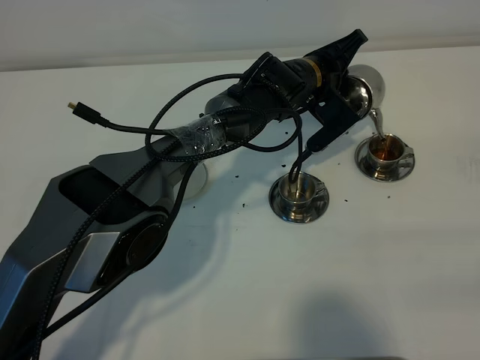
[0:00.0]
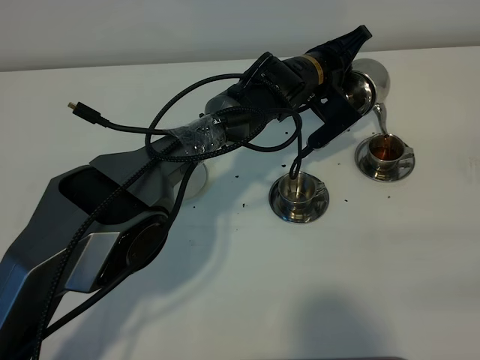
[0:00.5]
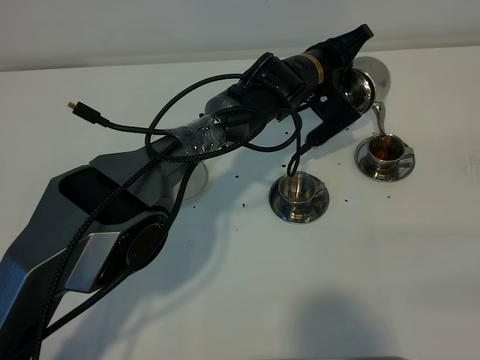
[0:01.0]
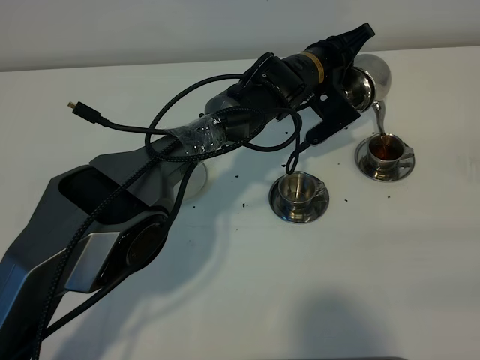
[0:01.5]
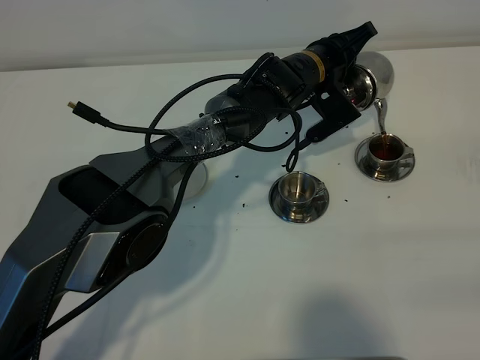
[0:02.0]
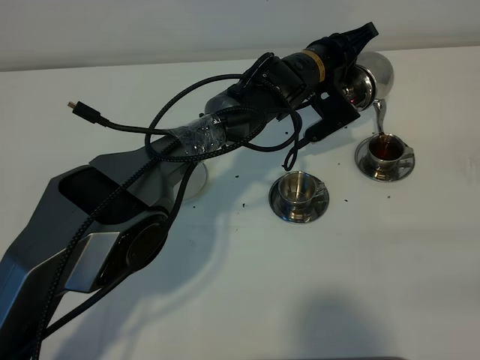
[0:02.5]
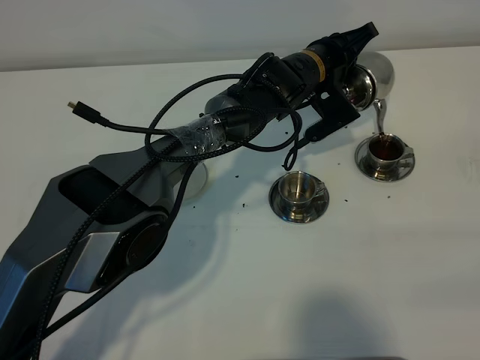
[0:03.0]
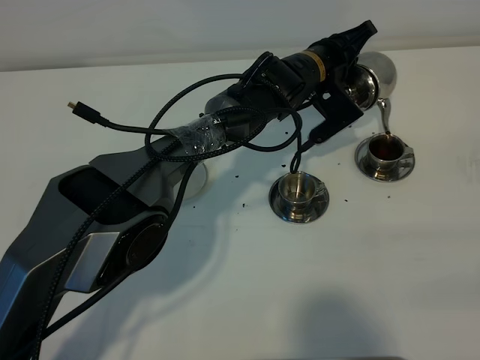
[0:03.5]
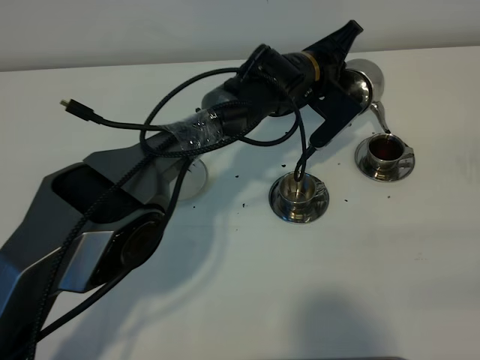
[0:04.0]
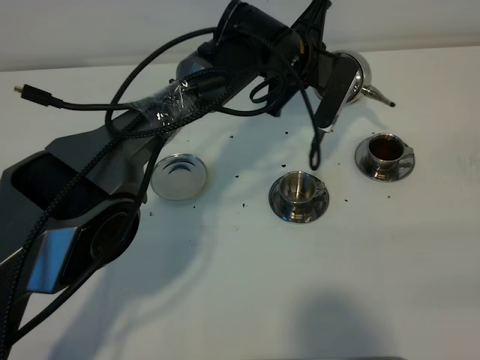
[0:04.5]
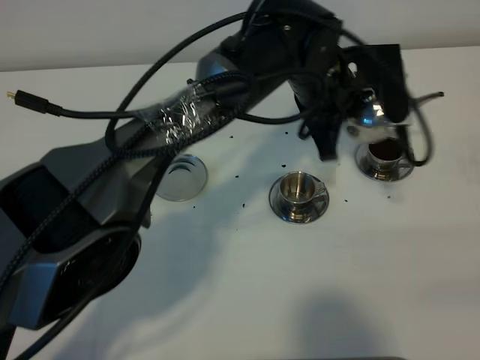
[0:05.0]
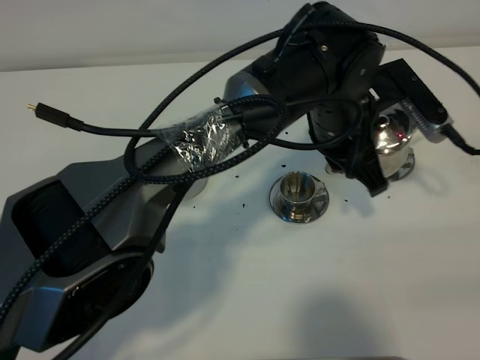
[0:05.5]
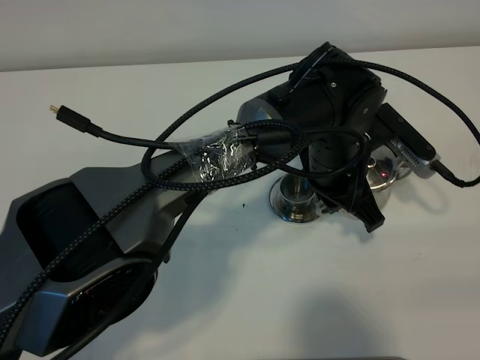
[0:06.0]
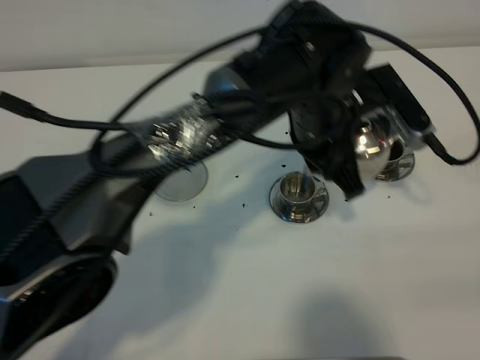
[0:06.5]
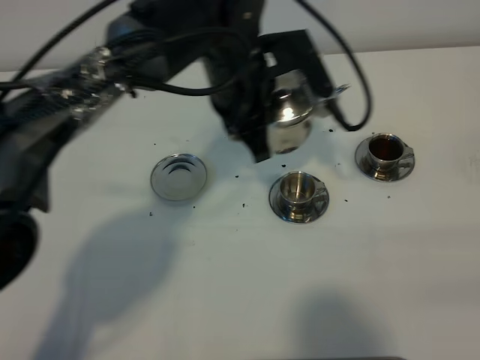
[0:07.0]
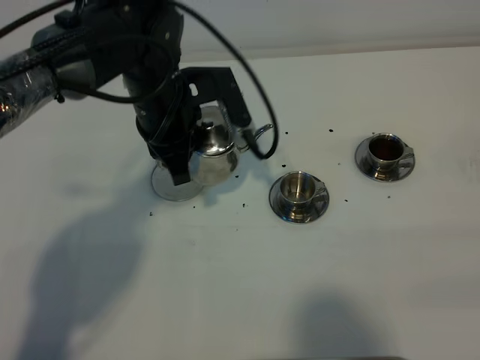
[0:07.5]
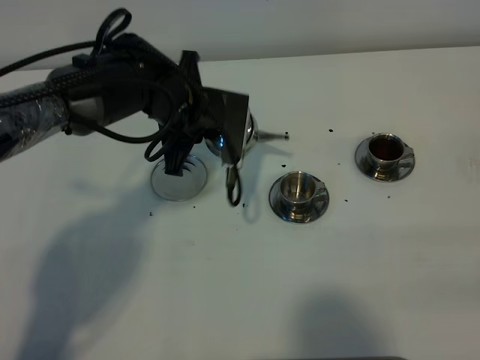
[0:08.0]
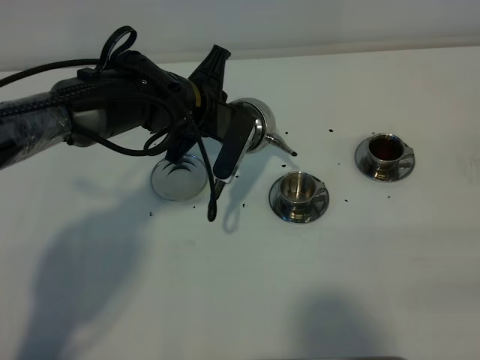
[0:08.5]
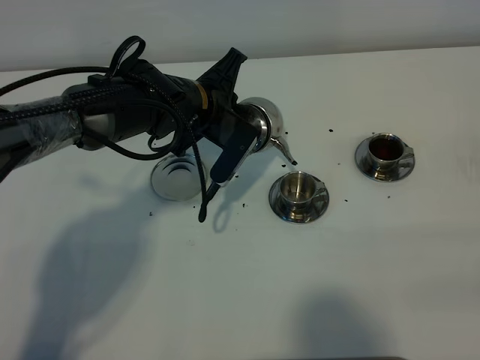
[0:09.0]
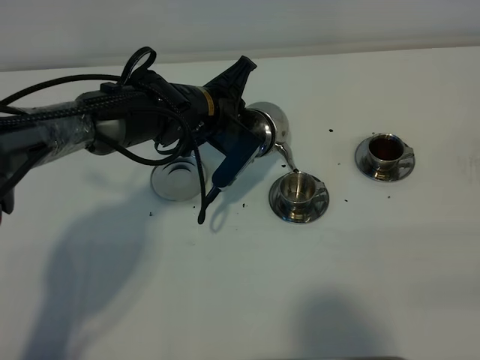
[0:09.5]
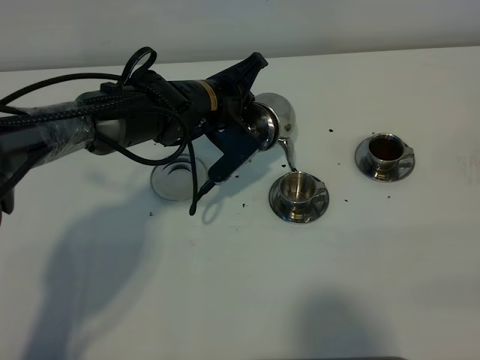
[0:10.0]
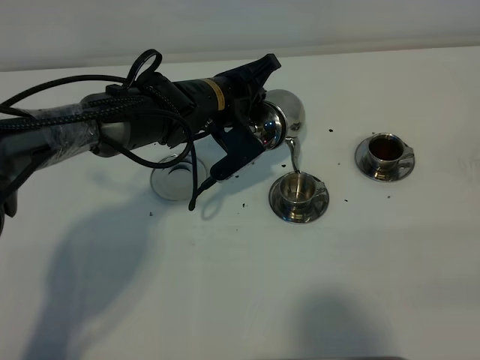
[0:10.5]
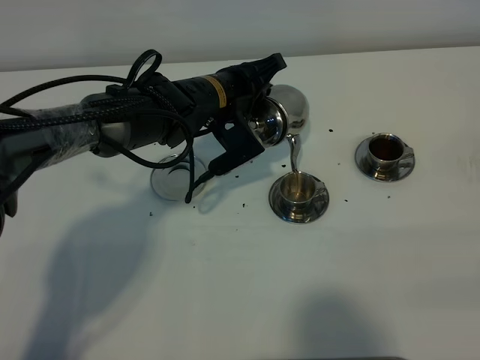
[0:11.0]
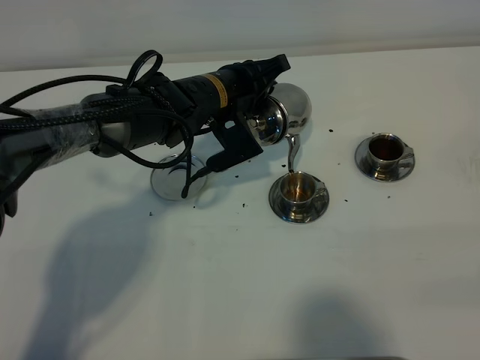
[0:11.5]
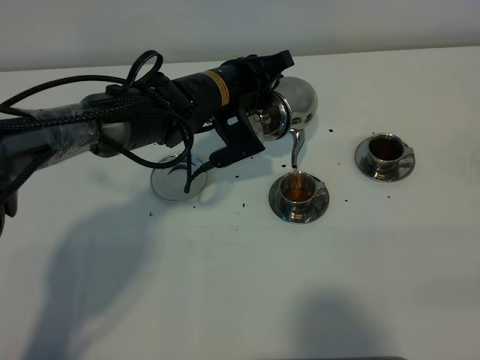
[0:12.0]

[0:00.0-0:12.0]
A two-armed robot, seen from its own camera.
Task of the whole recording: grasp the stainless steel teapot and pour the tea into the two stainless steel teacups one by one, put the stainless steel teapot back in its original place.
Step, 0:00.0 to 0:04.0: Pour tea into the teacup with the left gripper.
0:00.0 to 0:04.0: The grippers move only a little.
0:04.0 to 0:06.0: The left gripper heads backward, covering approximately 15 cm.
0:06.0 to 0:08.0: The left gripper shifts about 20 cm to the left and forward.

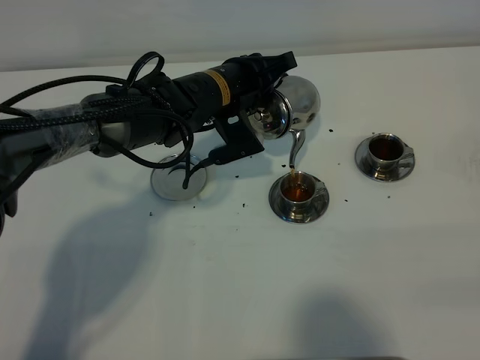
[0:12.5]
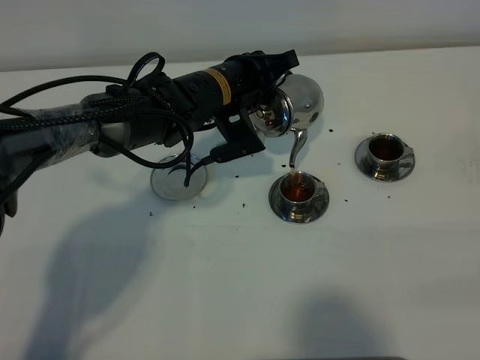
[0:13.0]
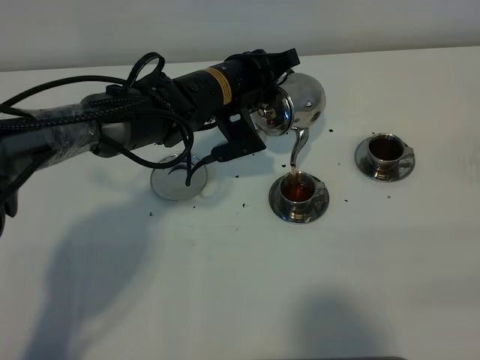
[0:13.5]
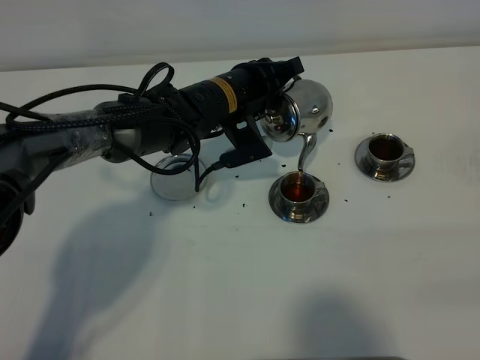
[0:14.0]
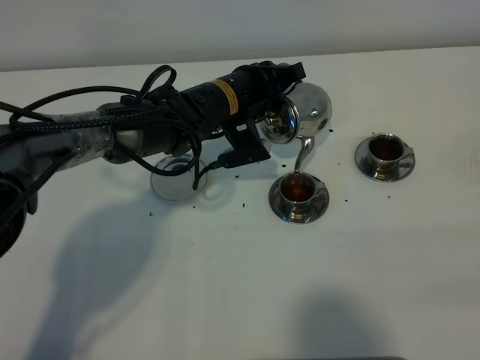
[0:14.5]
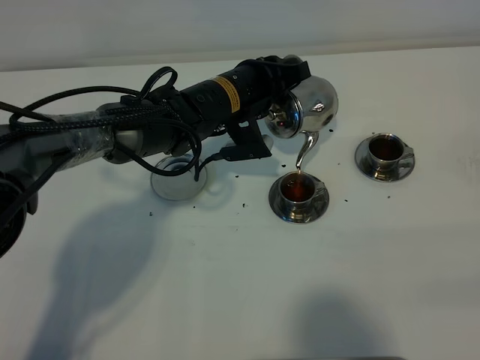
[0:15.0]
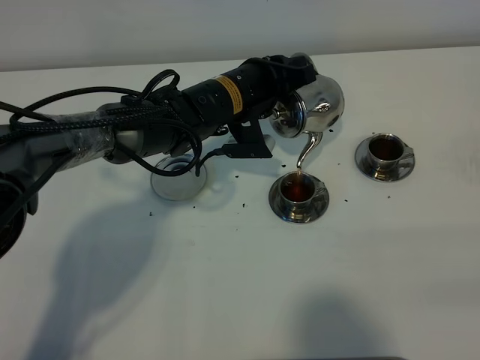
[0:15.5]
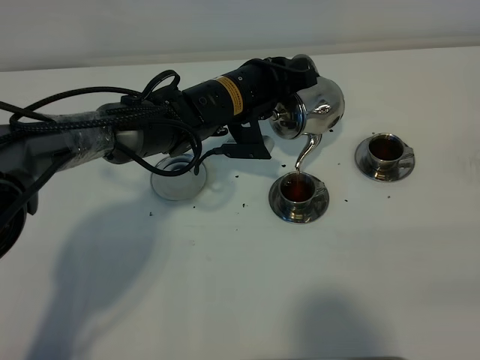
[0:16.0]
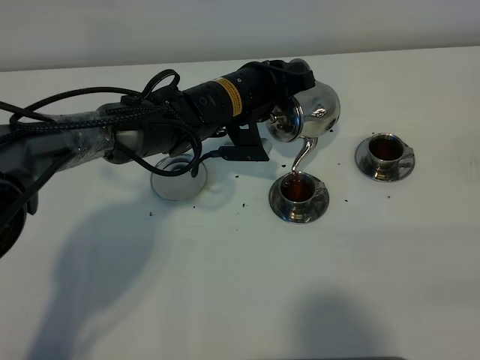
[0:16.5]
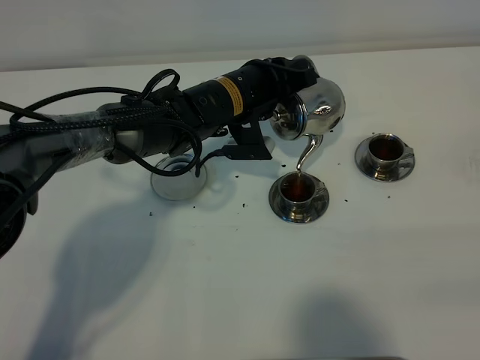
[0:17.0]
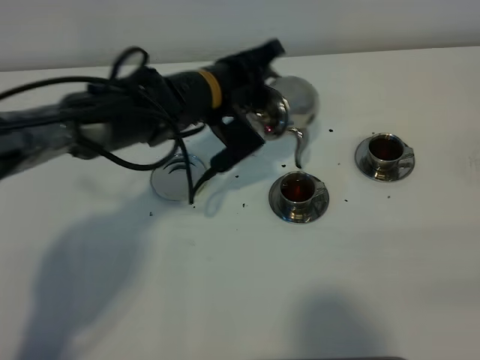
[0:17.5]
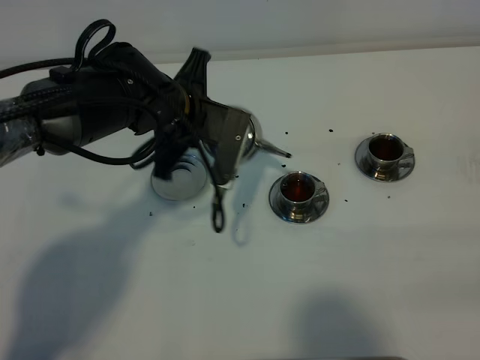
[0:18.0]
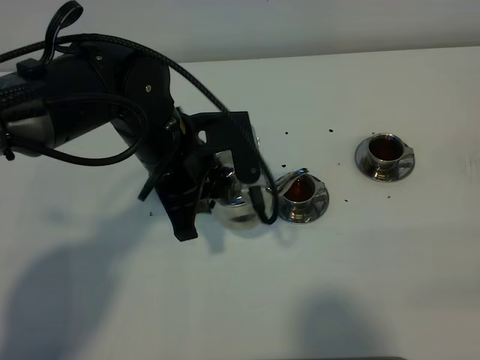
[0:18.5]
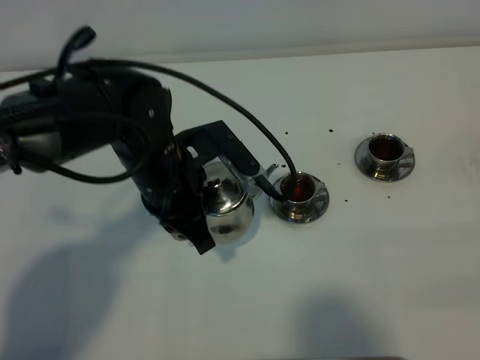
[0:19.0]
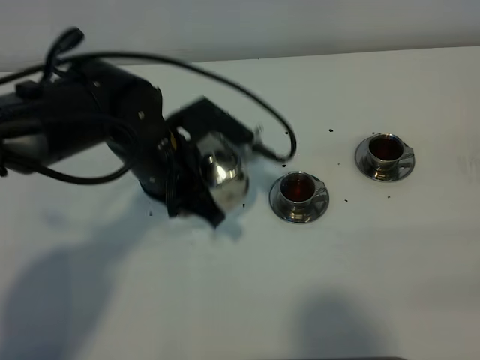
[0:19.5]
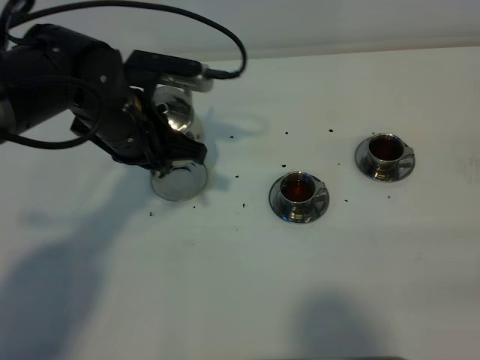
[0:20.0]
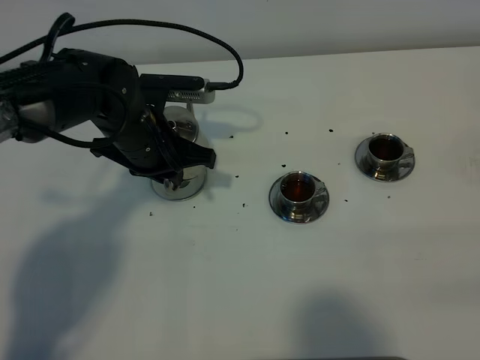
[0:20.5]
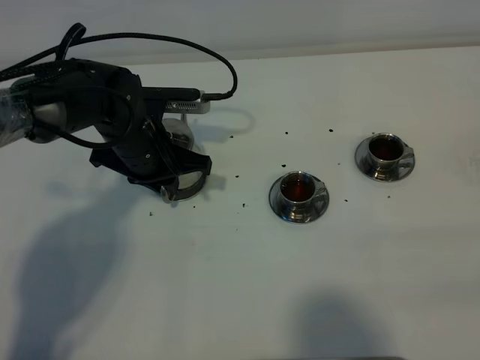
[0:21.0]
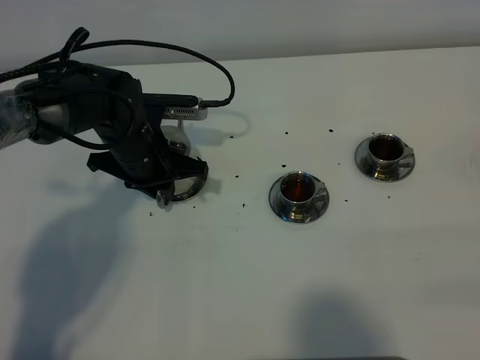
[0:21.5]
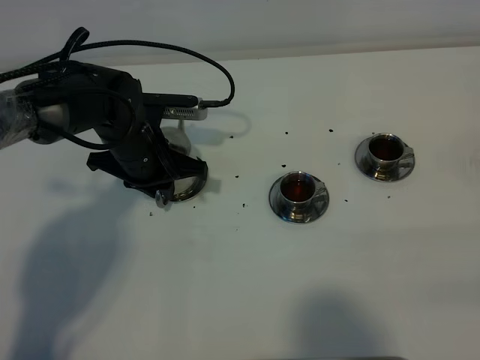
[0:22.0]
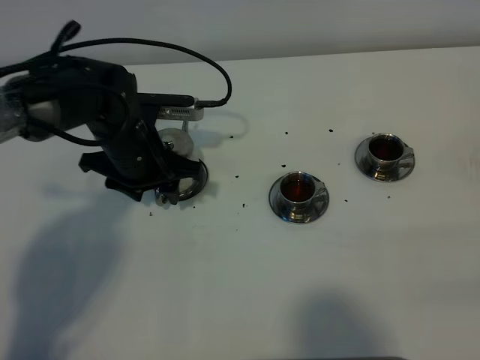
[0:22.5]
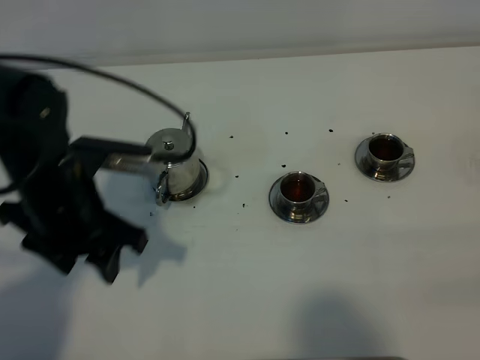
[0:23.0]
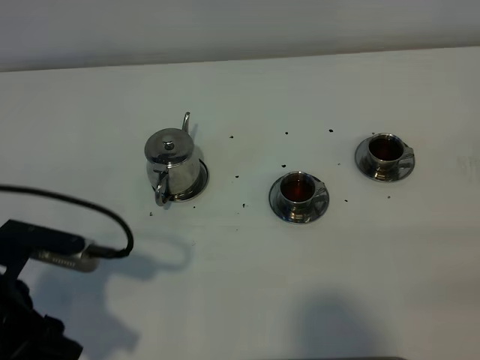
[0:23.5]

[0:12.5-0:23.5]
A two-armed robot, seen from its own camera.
Task of the whole recording: grasp the stainless steel teapot and pour the tea into the two stainless steel teacups one by one, put the stainless steel teapot back in its original place.
Step, 0:12.5 to 0:17.5: Pour tea into the teacup with the left gripper.
0:12.5 to 0:16.0: There are only small adjustments of the grippers.
0:16.0 to 0:18.0: The left gripper moves to the left, approximately 5 cm.
0:18.0 to 0:20.0: The left gripper goes roughly 5 cm to the left.
0:20.0 to 0:21.5: The left gripper goes some 10 cm downward.
0:21.5 to 0:23.5: The left gripper heads backward, covering roughly 25 cm, and opens.

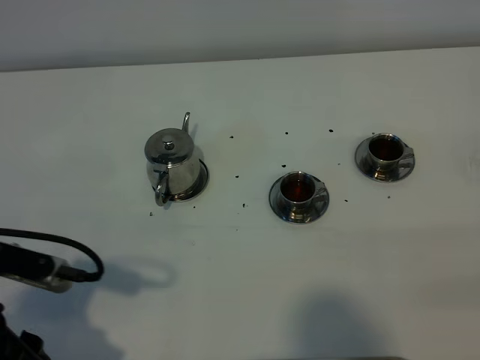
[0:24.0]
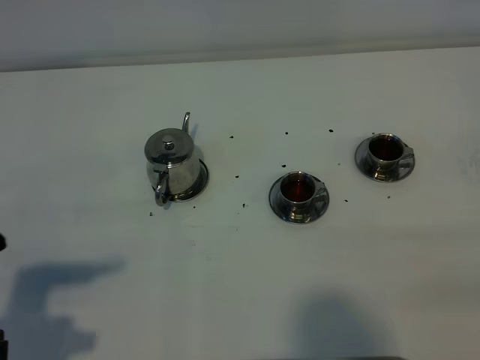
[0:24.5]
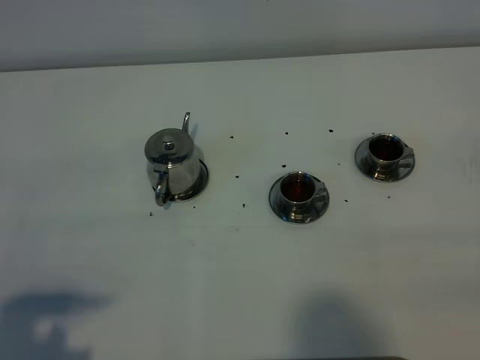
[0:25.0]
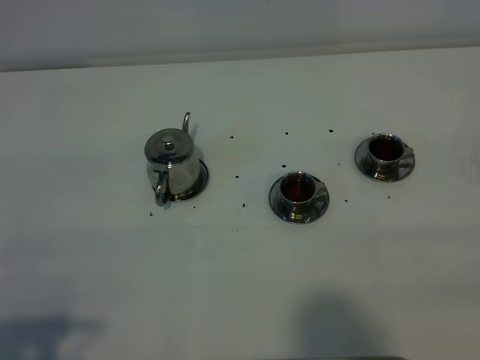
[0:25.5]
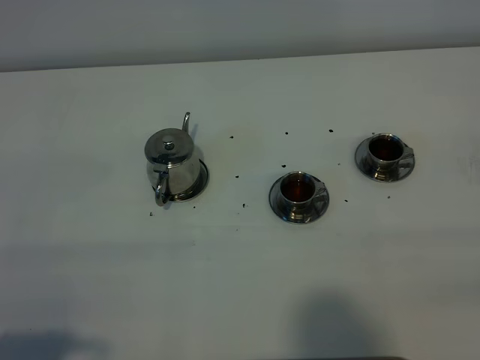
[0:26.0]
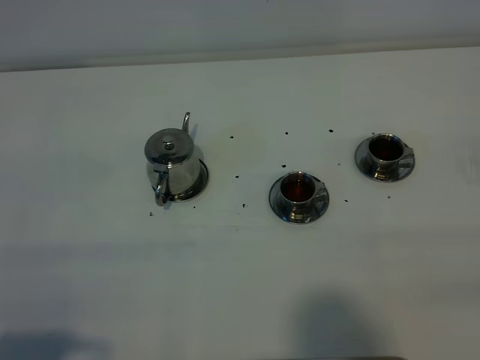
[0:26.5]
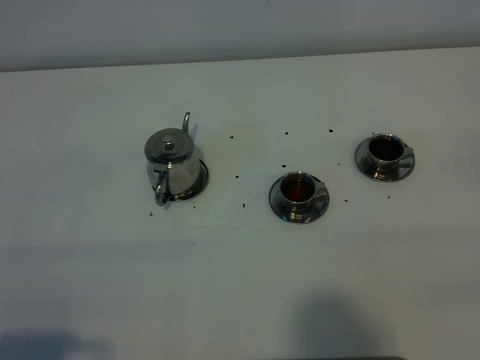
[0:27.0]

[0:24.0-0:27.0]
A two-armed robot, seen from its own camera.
Task of the whole recording: grasp the stainless steel teapot and pour the tea into the two stainless steel teacups one by one, put the stainless steel teapot back in its original place.
0:24.0 to 0:25.5: The left gripper travels backward by approximately 10 cm.
